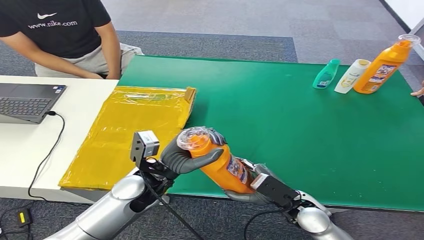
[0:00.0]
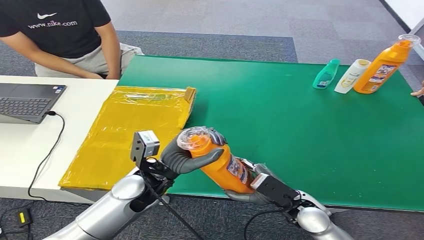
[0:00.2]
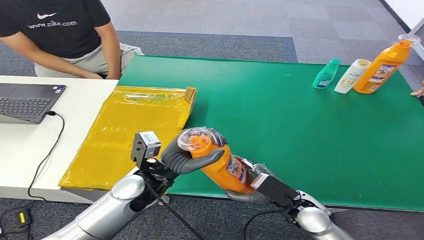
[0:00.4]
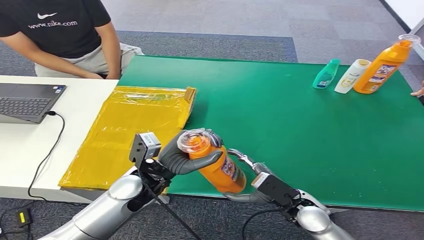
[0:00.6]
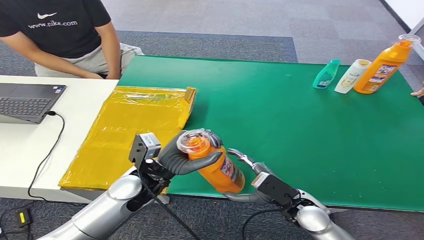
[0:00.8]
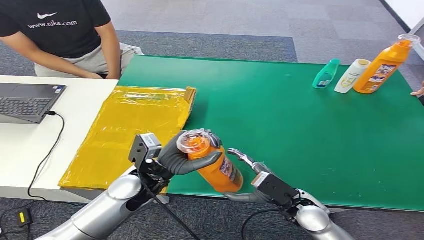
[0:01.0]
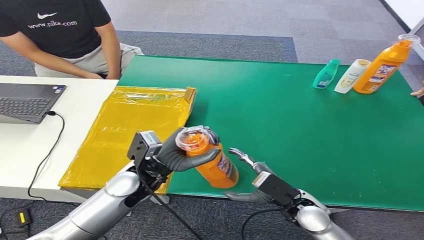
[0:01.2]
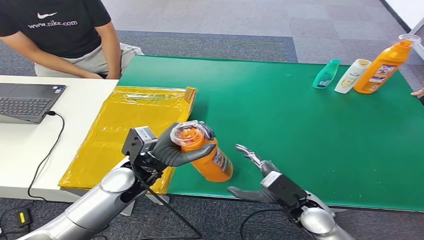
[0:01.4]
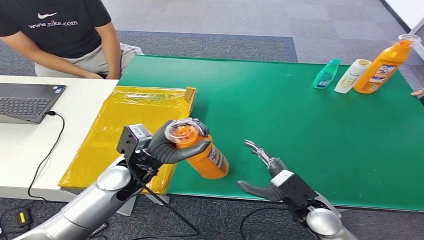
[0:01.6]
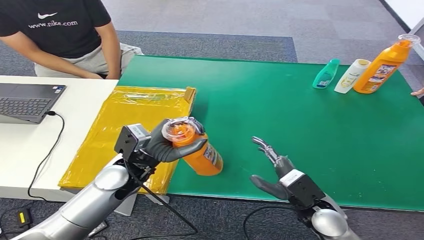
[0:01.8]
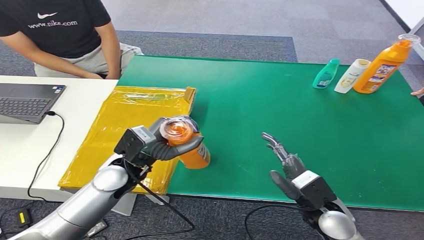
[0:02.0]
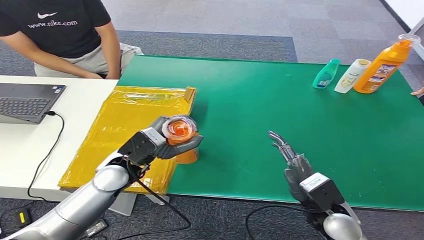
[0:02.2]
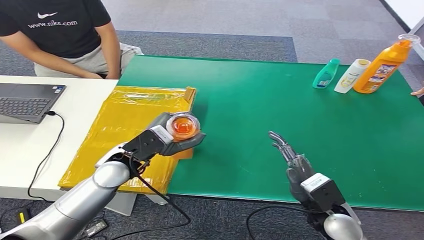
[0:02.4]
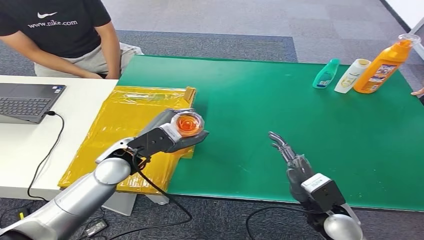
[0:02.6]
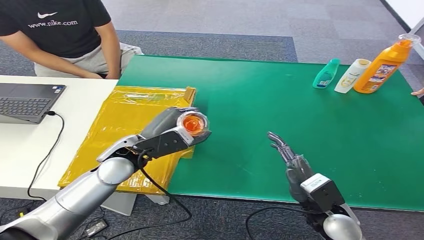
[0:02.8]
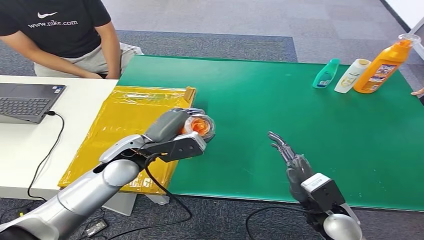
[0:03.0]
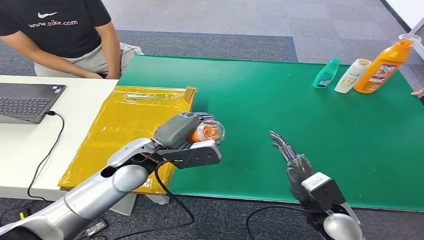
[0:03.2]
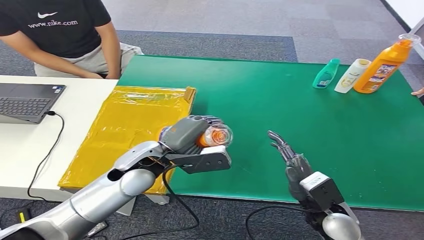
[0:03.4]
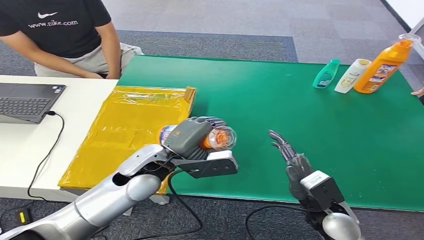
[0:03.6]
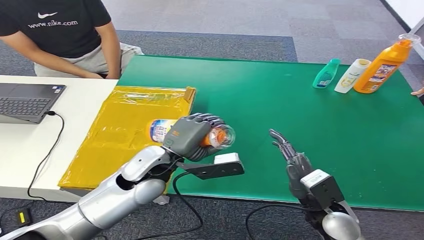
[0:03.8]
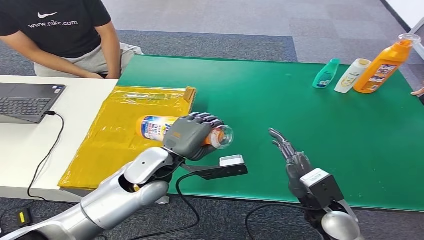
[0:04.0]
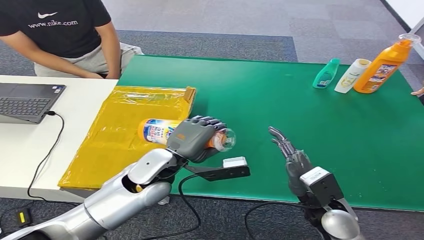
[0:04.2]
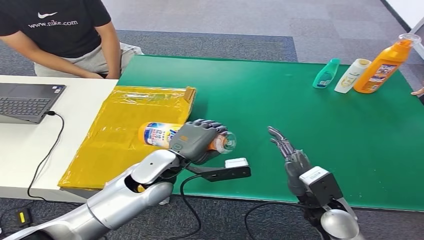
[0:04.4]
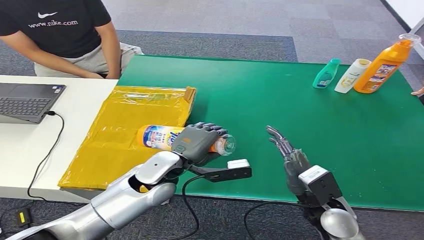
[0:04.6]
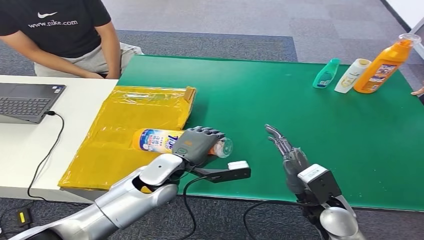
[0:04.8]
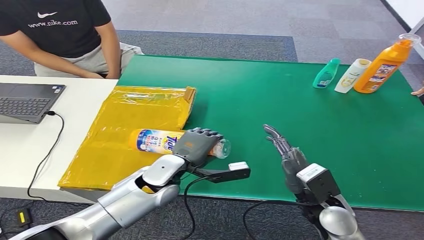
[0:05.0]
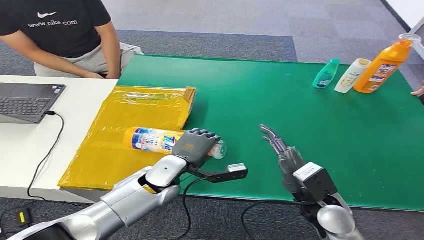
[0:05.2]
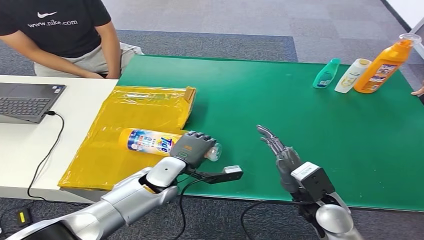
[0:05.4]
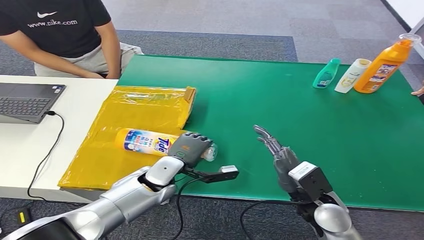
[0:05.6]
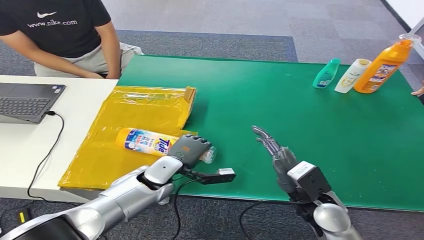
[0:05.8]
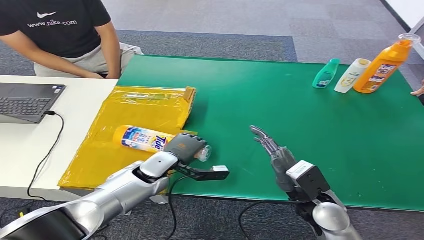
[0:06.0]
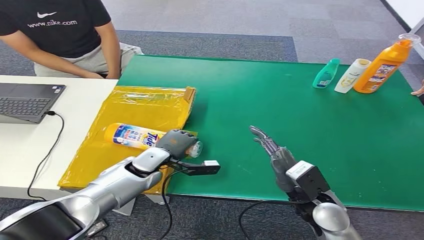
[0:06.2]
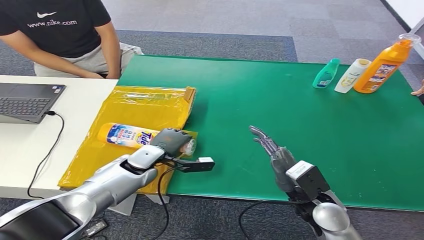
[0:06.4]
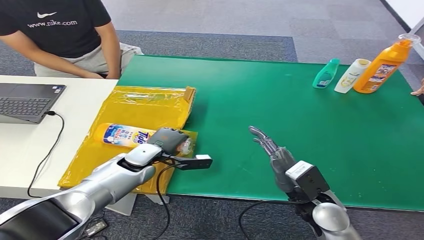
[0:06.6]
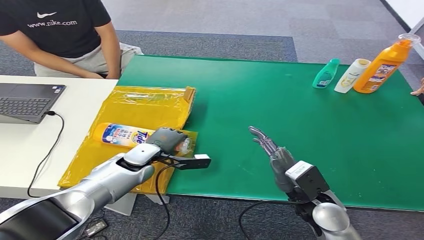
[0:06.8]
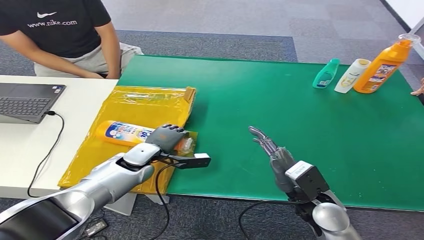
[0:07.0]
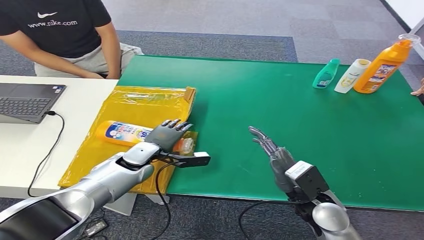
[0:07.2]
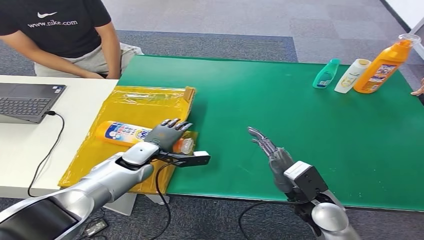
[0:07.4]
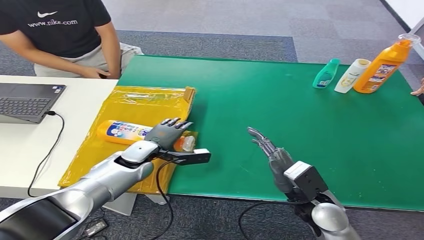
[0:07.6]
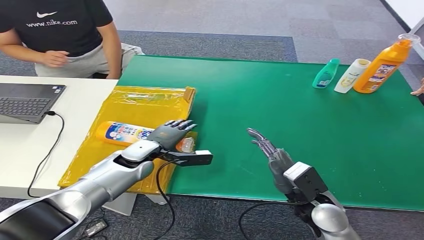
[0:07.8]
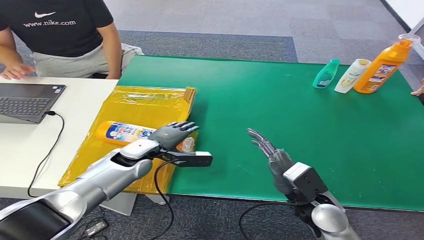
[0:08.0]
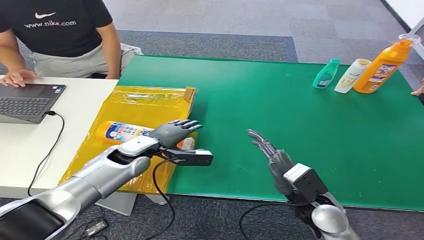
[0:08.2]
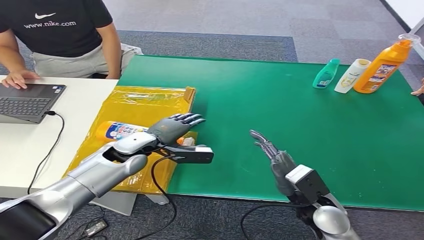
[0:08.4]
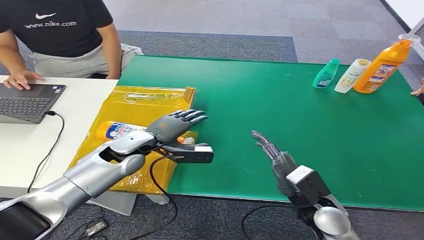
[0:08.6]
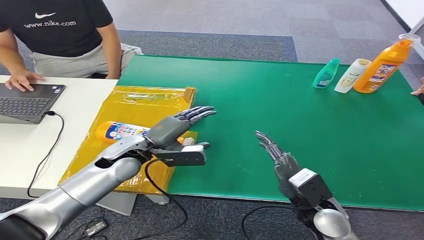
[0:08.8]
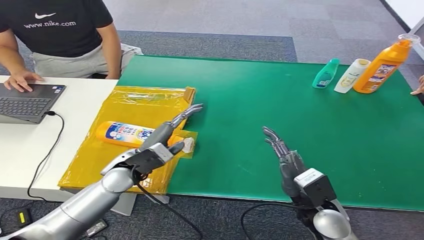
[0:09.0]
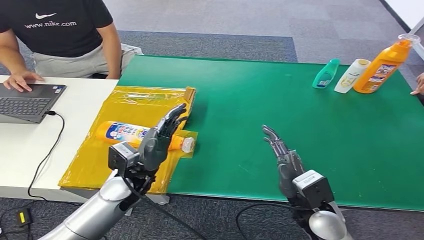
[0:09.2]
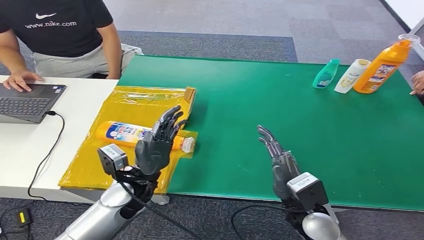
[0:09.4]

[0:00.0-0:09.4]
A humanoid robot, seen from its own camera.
Step, 0:00.0 to 0:09.4: Turn the bottle to the front side.
0:00.0 to 0:01.6: There are only small adjustments of the hands.
0:03.2 to 0:04.8: The left hand travels downward by about 5 cm.
0:04.8 to 0:06.2: The left hand heads downward, to the left and forward, covering about 10 cm.
0:06.2 to 0:07.8: There are only small adjustments of the hands.
0:07.8 to 0:09.4: The left hand travels backward by approximately 10 cm.
